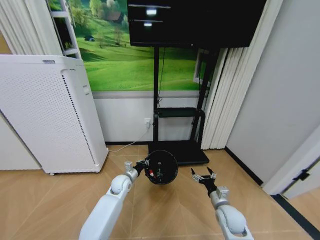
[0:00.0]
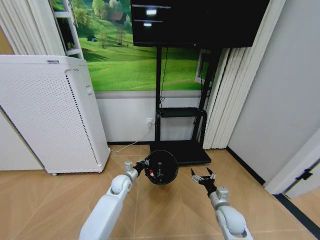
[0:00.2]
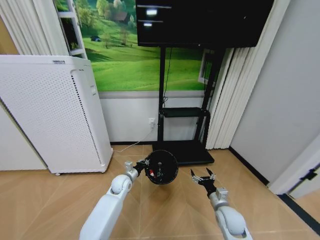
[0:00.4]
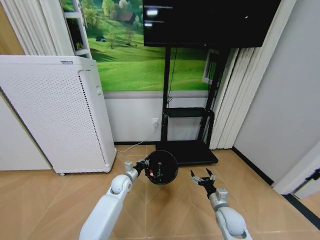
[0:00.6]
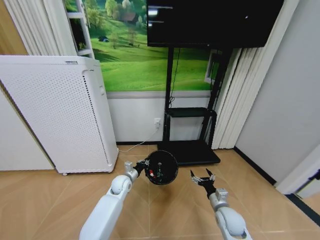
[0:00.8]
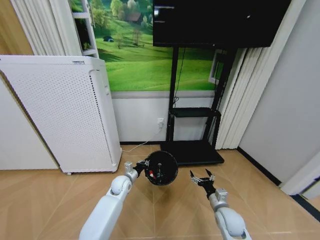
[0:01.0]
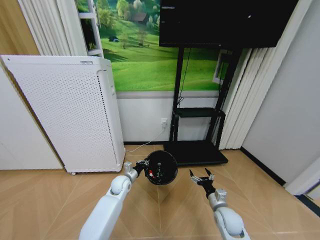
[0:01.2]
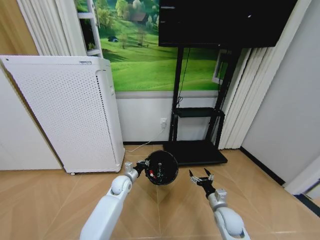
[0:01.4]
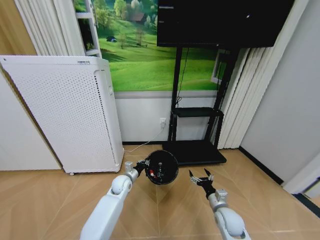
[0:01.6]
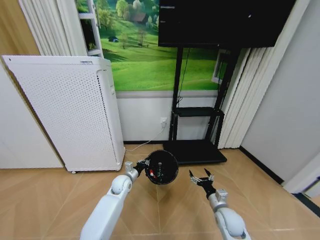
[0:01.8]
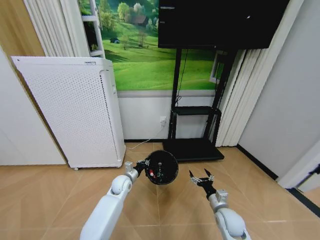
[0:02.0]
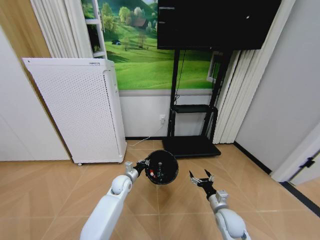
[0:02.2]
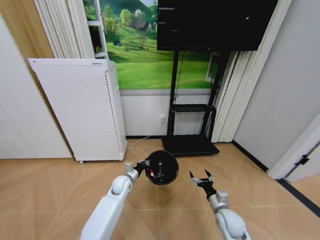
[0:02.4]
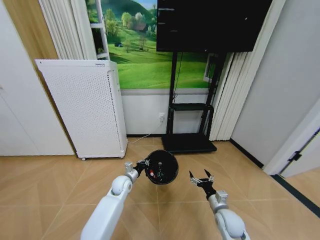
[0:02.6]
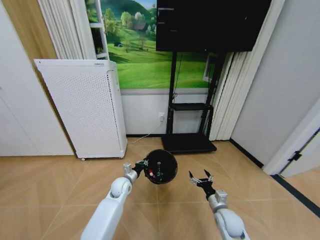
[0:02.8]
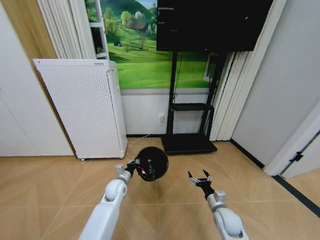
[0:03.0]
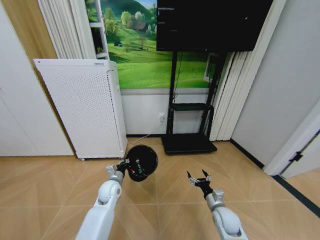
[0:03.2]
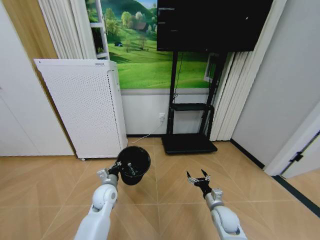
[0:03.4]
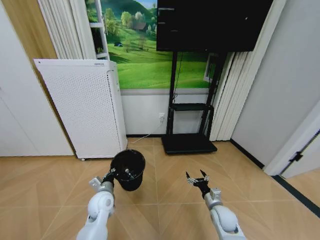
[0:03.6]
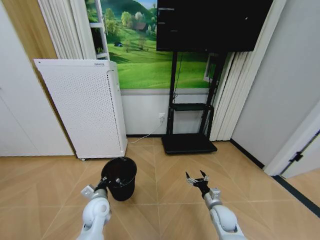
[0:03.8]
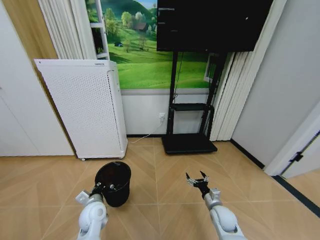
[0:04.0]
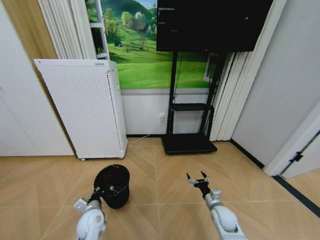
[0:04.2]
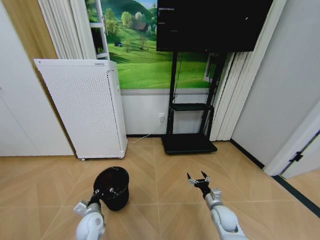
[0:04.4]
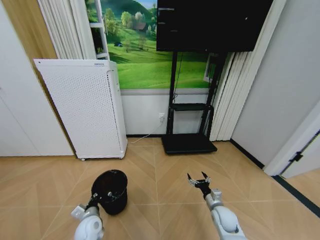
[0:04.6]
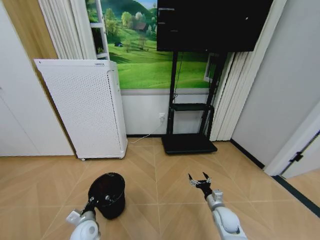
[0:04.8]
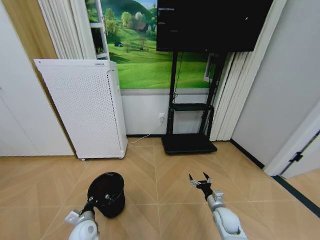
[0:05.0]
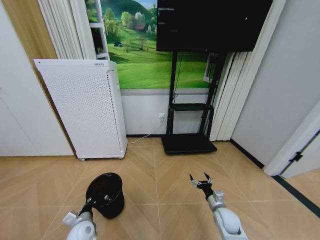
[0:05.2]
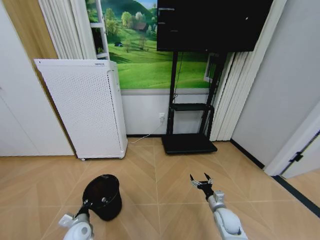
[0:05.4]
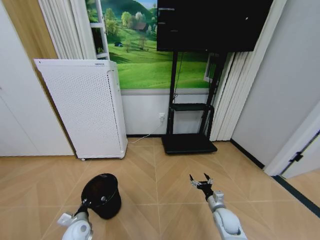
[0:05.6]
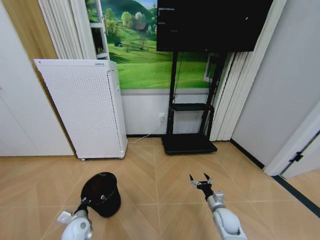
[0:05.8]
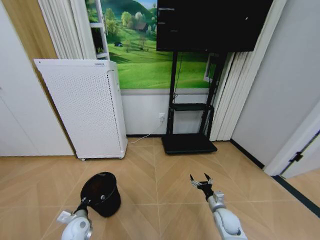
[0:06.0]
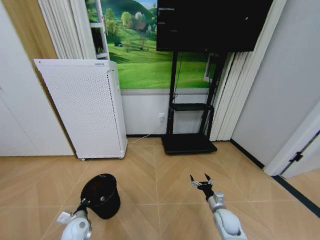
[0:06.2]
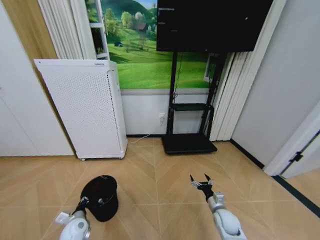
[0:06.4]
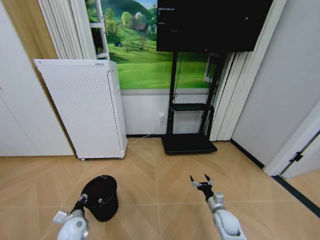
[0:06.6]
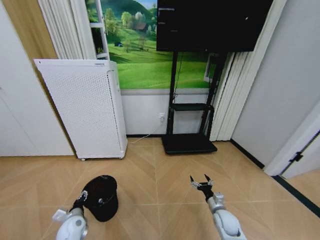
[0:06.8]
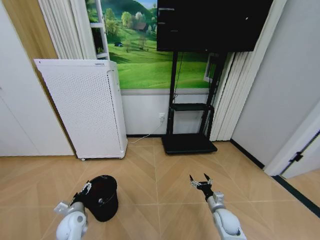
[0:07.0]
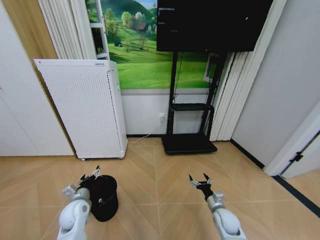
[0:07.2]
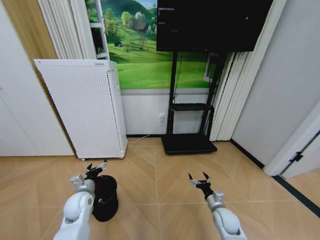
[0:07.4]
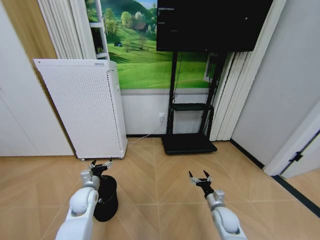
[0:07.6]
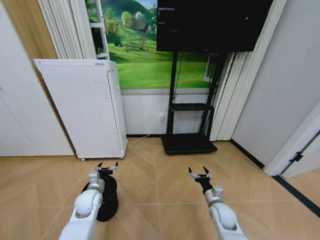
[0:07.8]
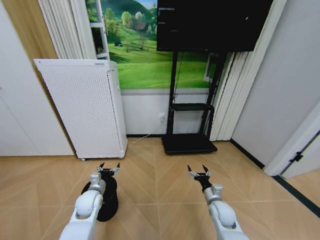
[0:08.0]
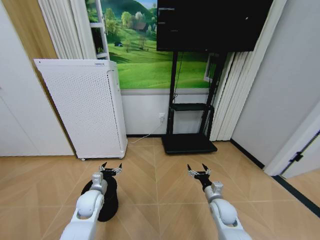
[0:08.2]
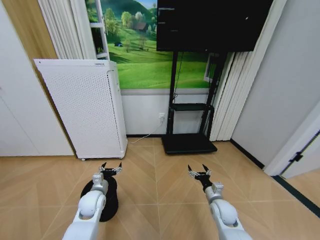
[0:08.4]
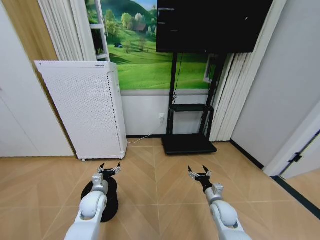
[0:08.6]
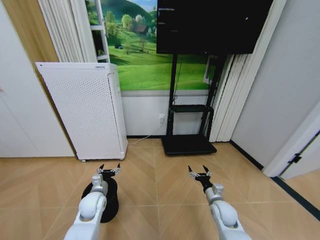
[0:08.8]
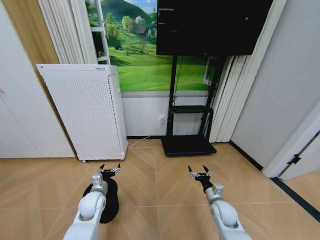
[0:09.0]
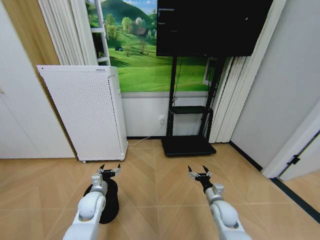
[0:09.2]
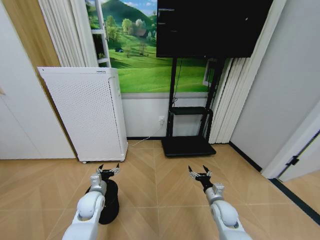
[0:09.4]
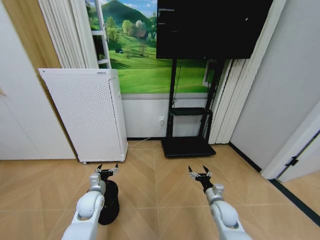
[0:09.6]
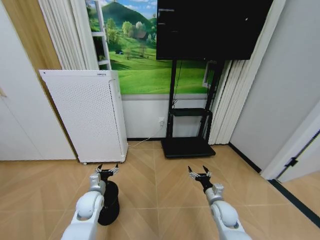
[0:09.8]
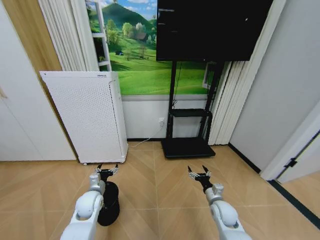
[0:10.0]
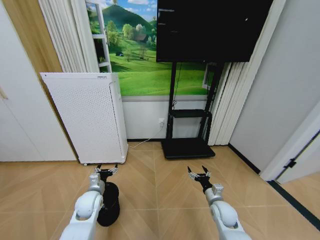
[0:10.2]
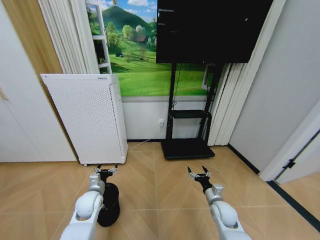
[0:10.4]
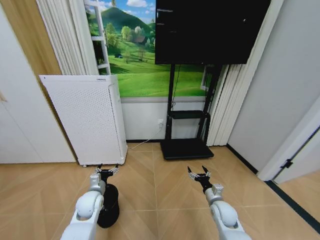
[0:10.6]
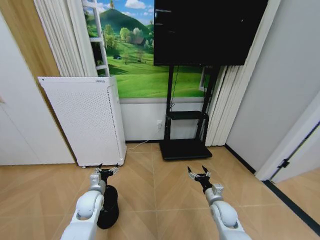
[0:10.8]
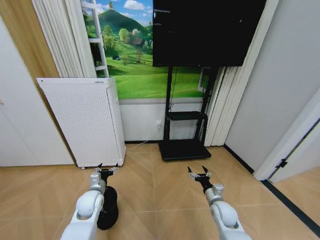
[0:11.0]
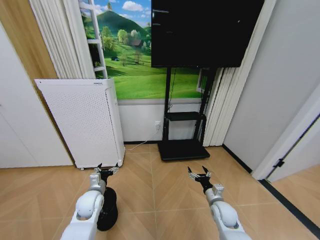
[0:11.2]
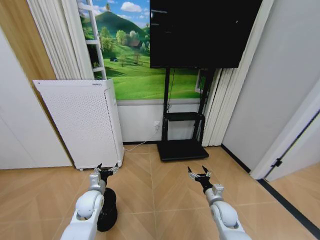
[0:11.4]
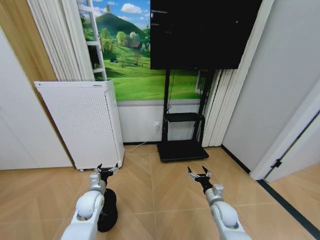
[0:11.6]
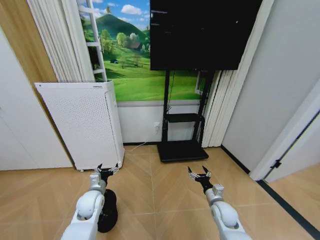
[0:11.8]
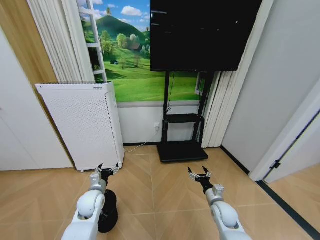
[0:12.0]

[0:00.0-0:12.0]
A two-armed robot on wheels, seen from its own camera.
Task of the whole recording: Pick up the trash bin and place the garbage on the floor into it.
0:03.0 to 0:04.4: The left gripper moves backward, to the left and downward, some 15 cm.
0:04.4 to 0:06.0: The left gripper travels to the left by approximately 5 cm.
0:06.0 to 0:07.6: The left gripper is displaced upward and forward by approximately 15 cm, and opens its fingers.
0:07.6 to 0:09.0: There are only small adjustments of the grippers.
0:09.0 to 0:10.4: Neither gripper changes place.

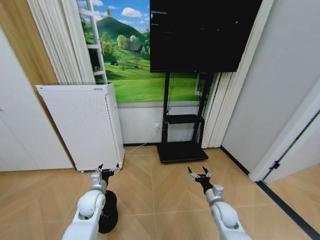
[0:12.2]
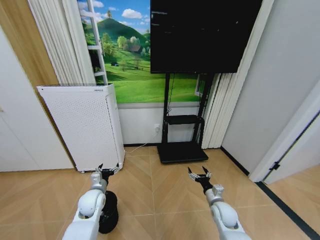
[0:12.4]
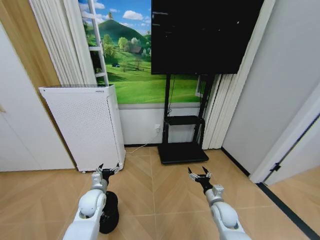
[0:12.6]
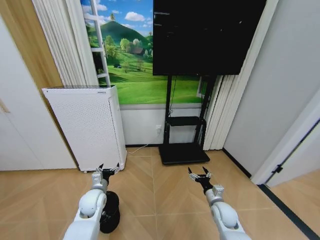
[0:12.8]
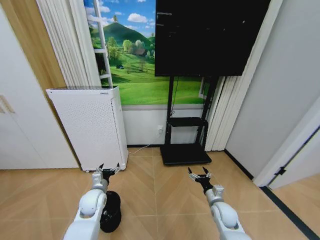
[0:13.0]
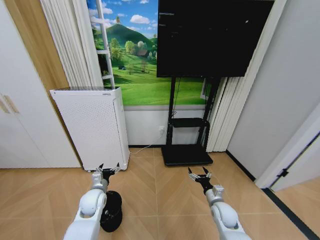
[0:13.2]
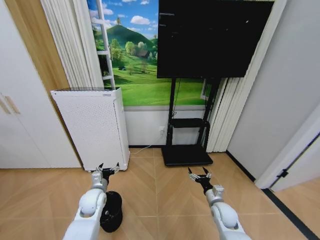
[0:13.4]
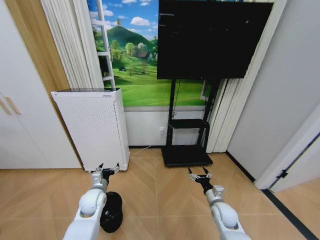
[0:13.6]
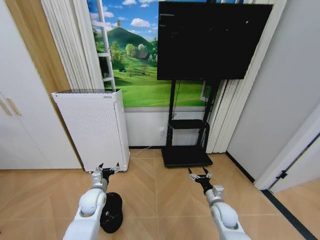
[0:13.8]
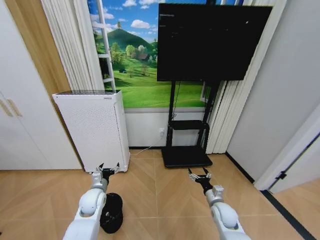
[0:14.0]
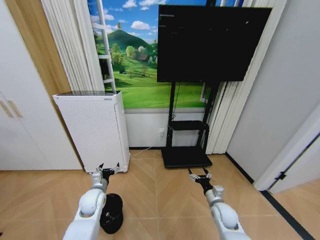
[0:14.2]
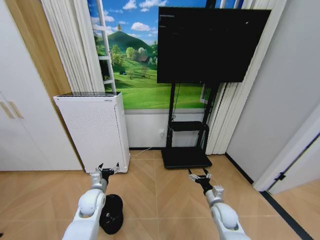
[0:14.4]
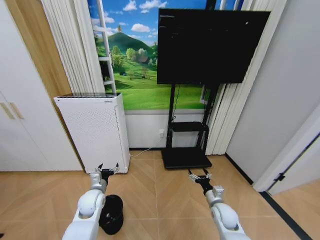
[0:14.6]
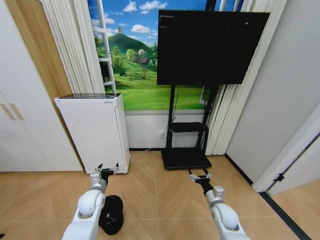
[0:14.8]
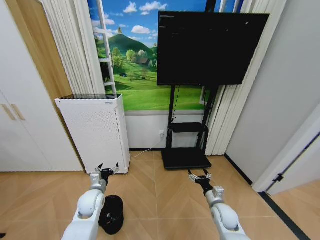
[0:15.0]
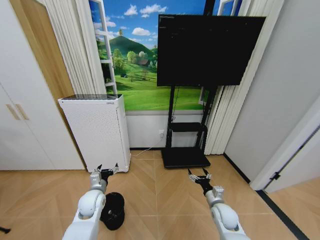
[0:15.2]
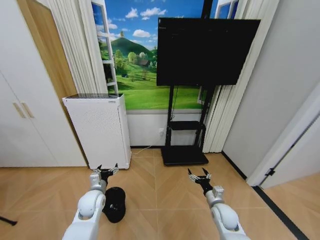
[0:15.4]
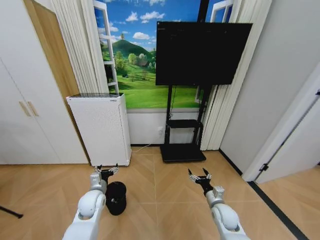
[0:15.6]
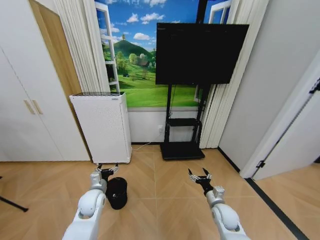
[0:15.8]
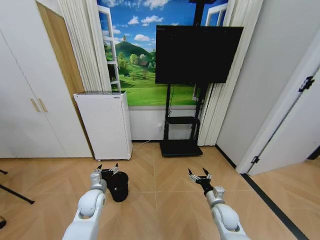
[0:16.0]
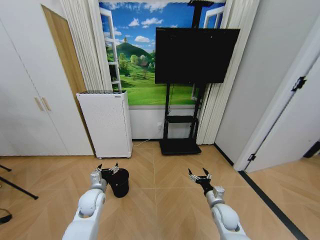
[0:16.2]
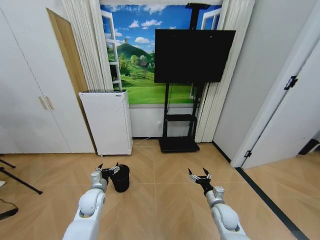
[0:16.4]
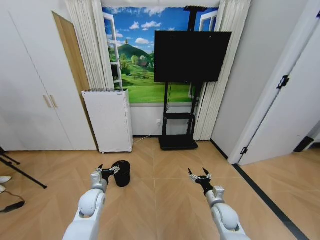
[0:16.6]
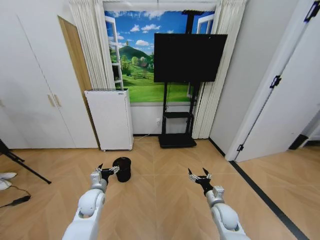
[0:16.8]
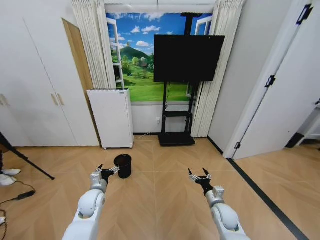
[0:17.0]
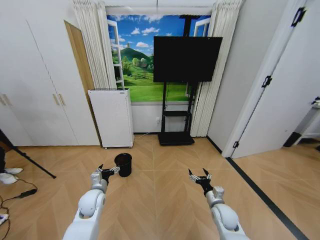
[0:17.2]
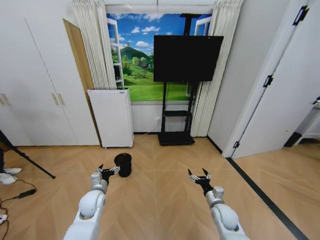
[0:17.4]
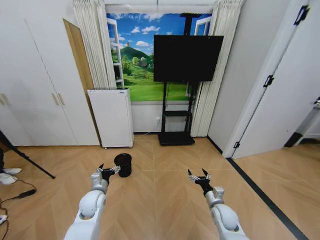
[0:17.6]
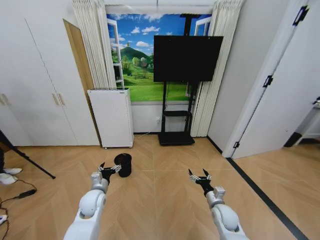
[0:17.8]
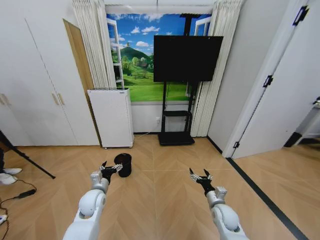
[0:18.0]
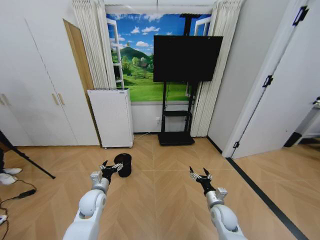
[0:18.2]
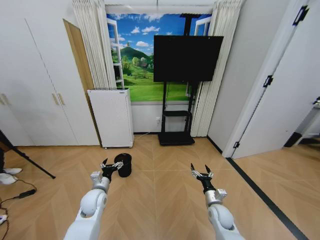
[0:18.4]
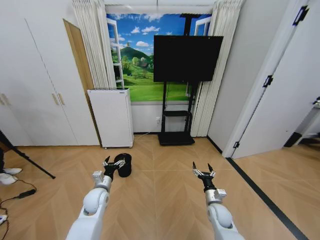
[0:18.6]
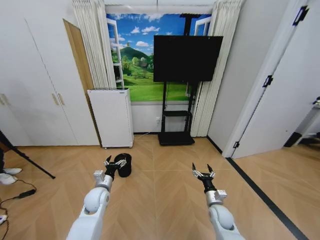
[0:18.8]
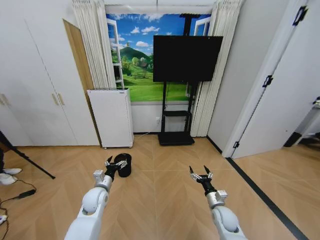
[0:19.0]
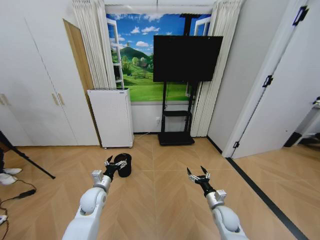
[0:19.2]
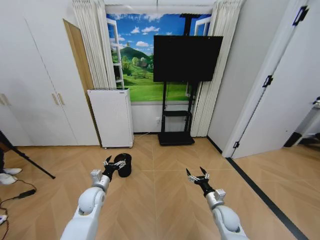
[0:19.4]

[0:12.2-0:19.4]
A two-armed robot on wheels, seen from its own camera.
Task of the whole recording: Pick up the trash bin and place the garbage on the floor into it.
0:13.6 to 0:15.0: The two grippers keep their place.
0:16.6 to 0:19.4: The grippers stay close to where they were, moving slightly.

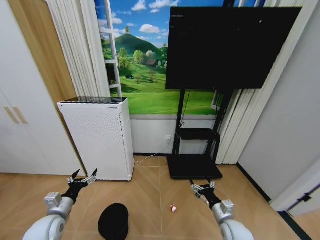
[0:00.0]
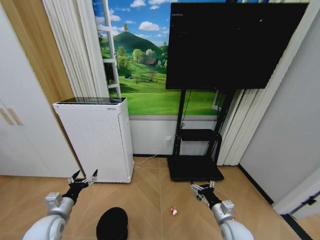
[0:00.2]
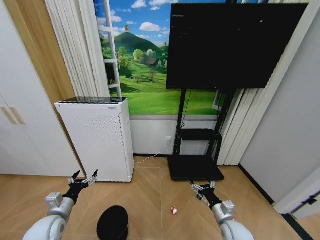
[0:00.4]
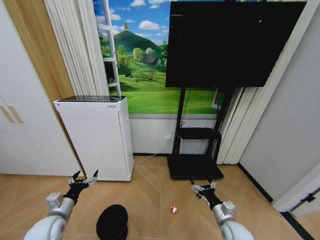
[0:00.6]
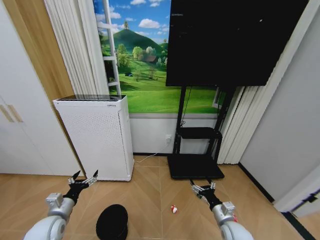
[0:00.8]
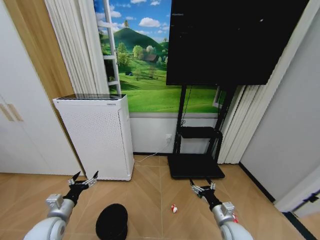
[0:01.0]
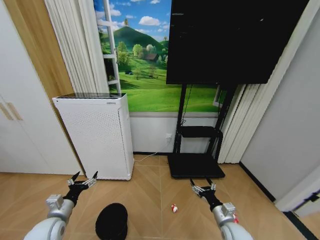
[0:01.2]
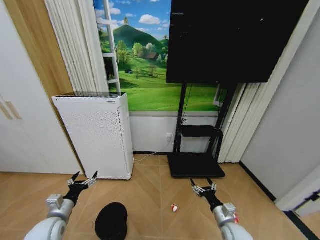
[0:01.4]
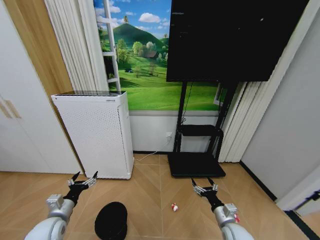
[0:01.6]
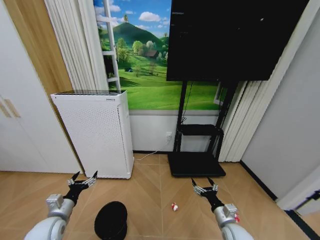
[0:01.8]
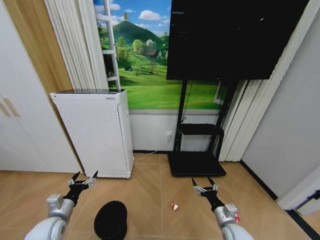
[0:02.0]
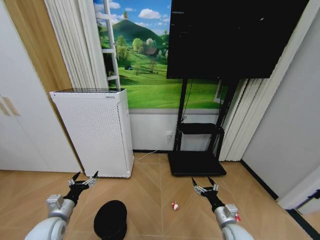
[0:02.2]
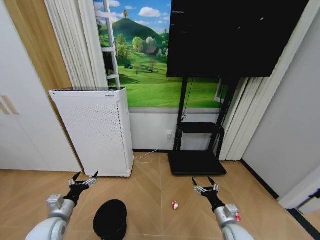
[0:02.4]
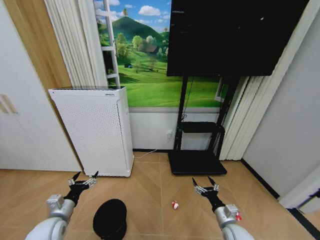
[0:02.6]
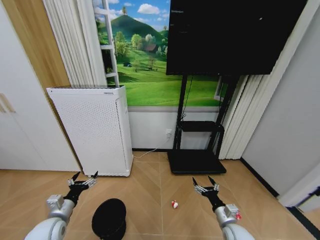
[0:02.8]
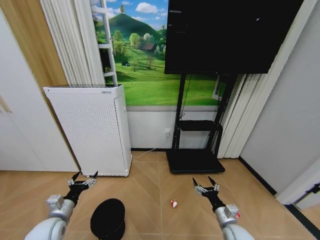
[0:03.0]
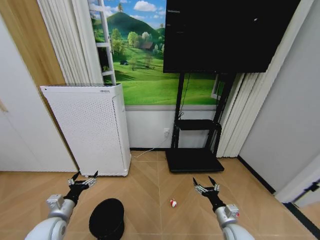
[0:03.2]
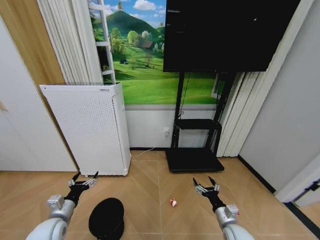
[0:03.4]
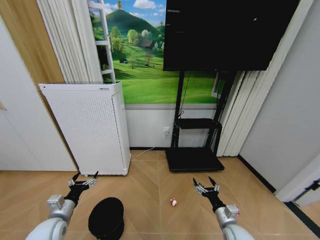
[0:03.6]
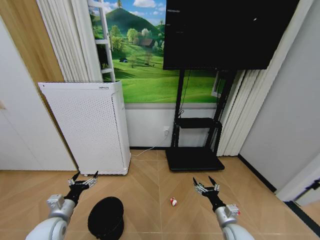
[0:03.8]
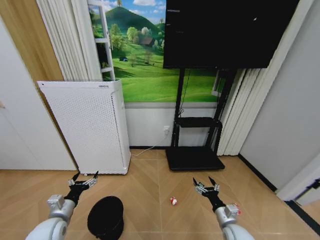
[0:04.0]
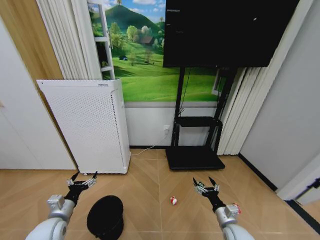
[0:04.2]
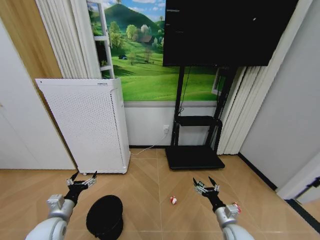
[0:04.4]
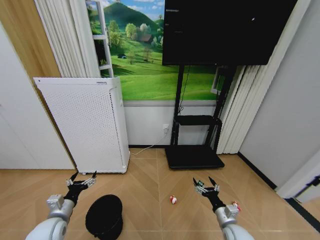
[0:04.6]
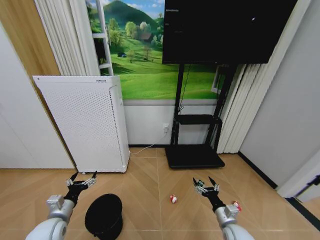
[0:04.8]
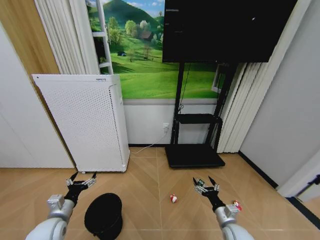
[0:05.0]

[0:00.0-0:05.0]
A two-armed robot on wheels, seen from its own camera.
Task of the whole recording: Pick up the trash bin and place the garbage on the floor into it.
0:03.4 to 0:05.0: Both grippers stay put.
